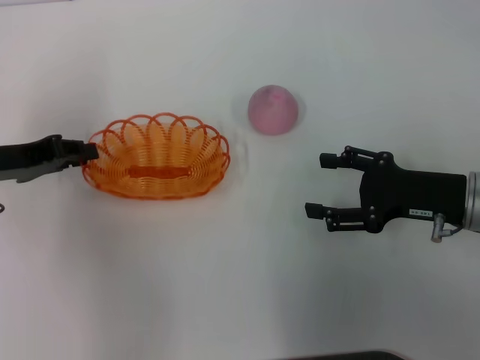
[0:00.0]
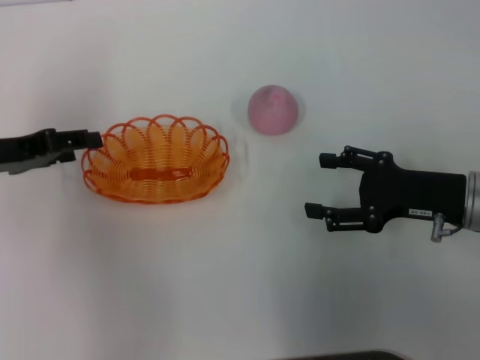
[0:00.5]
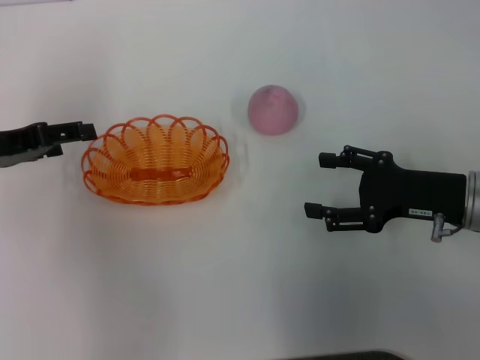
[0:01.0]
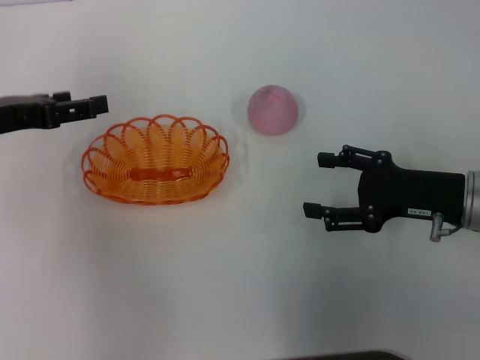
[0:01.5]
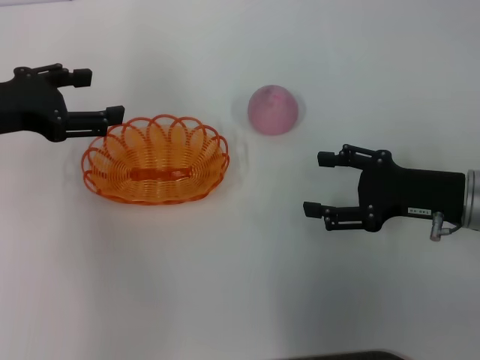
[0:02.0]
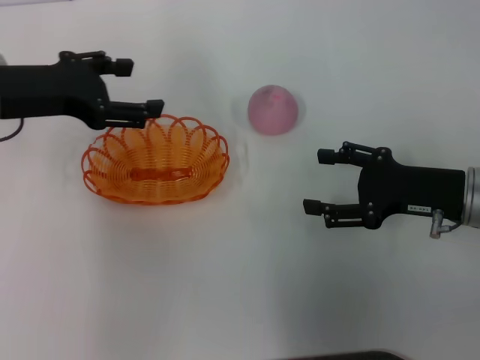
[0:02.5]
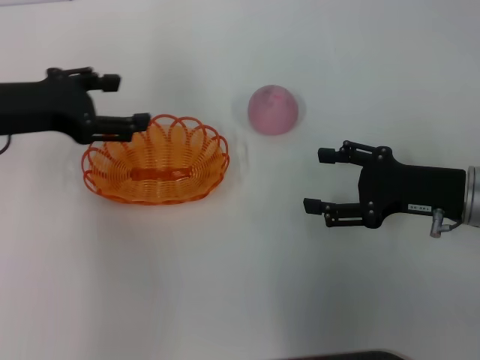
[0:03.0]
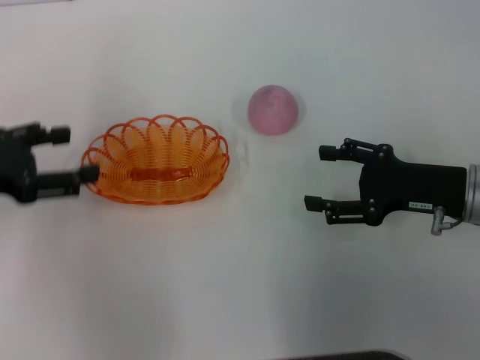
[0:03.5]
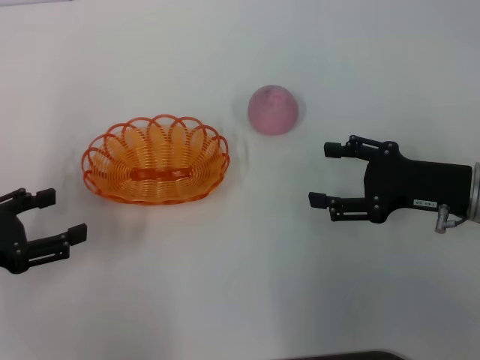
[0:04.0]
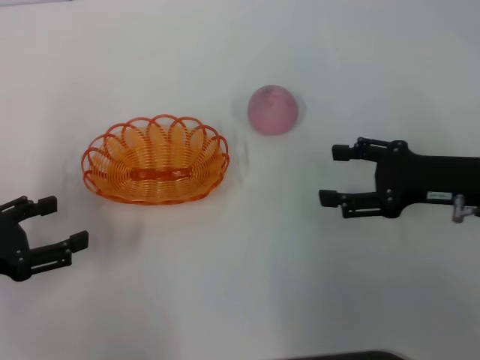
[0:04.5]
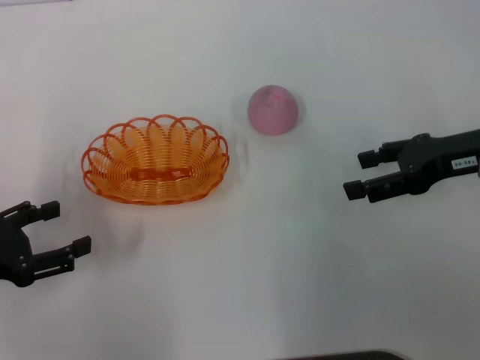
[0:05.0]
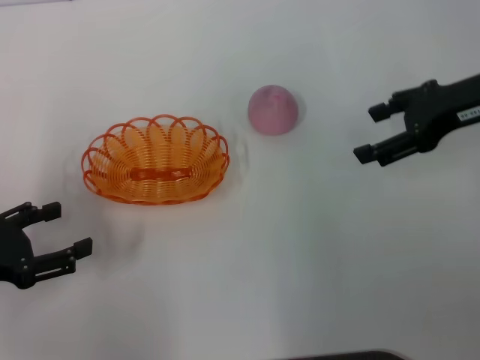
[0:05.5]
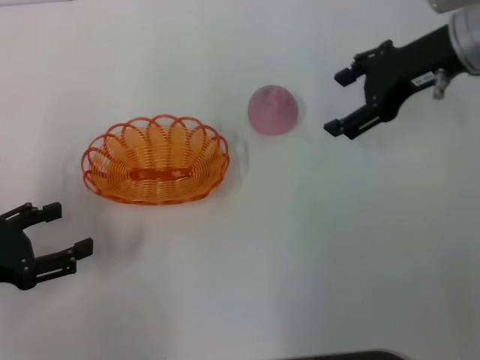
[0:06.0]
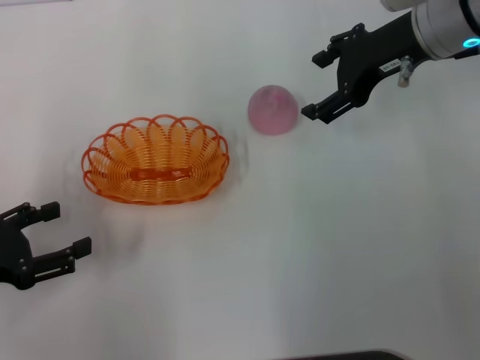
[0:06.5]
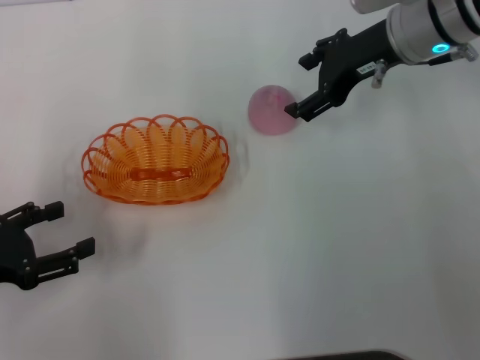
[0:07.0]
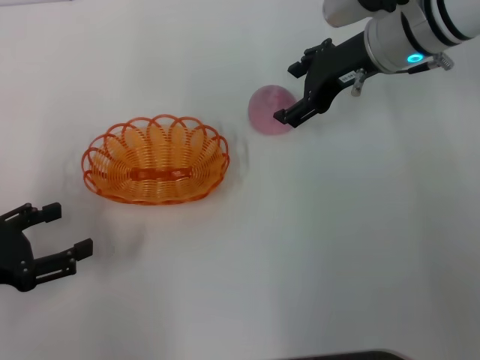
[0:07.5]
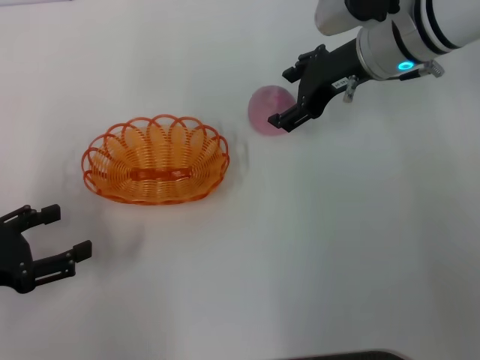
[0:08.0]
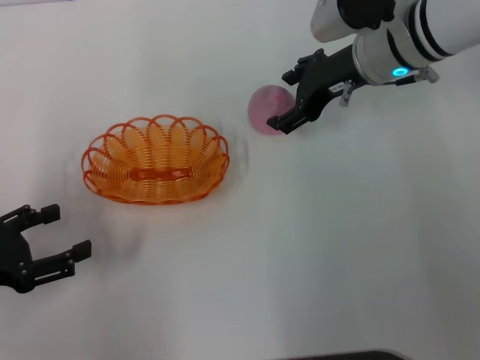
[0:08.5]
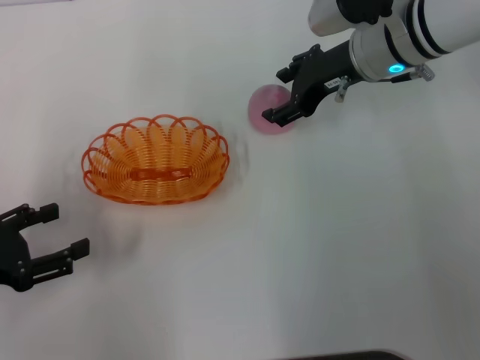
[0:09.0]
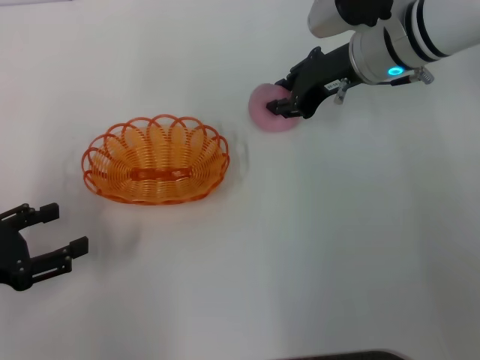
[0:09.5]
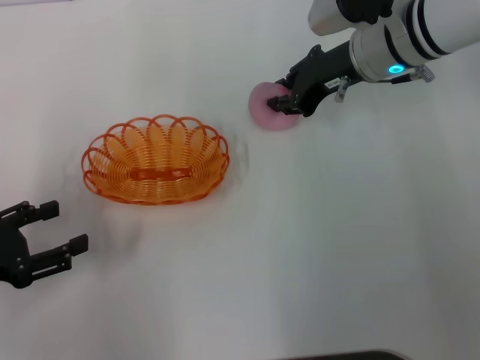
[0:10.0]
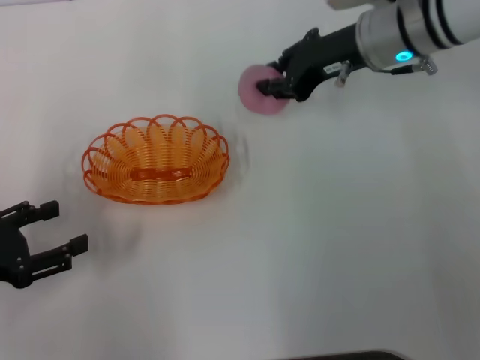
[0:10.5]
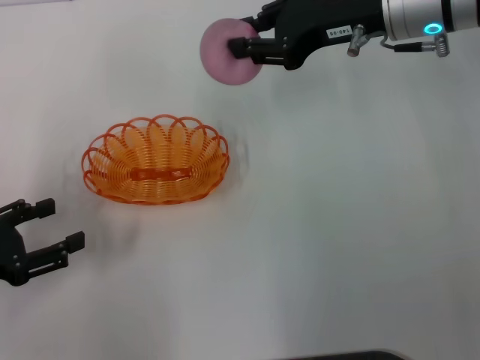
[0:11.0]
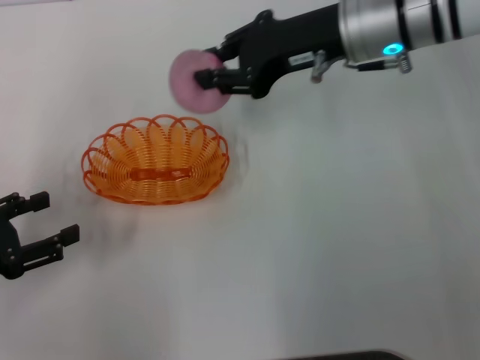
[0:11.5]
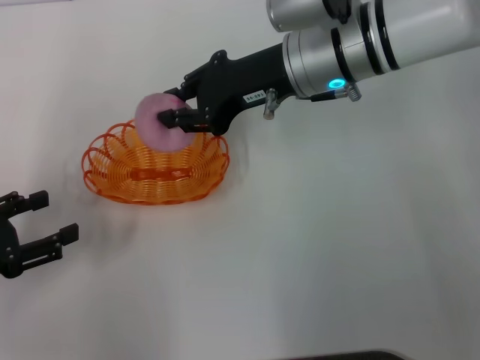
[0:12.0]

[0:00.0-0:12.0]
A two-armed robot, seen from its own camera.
Step, 0:01.0 to 0:10.5: Pick up the peach with the right gripper.
0:00.0 to 0:02.0: The left gripper shifts roughly 5 cm upward, and opens up.
0:02.0 to 0:04.0: The left gripper goes approximately 15 cm backward and downward.
0:04.0 to 0:06.0: The right gripper heads upward and forward, covering roughly 15 cm.
0:06.0 to 0:08.0: The right gripper is displaced to the left and downward by some 10 cm.
0:08.0 to 0:10.0: The right gripper closes up.
0:10.0 to 0:12.0: The right gripper goes some 5 cm to the left.

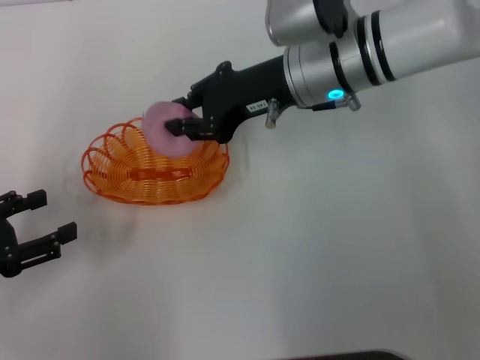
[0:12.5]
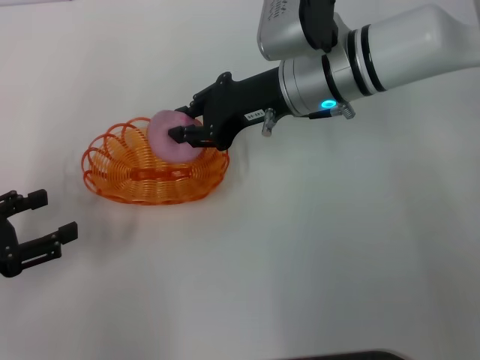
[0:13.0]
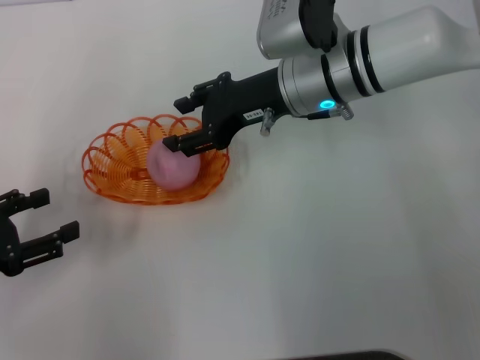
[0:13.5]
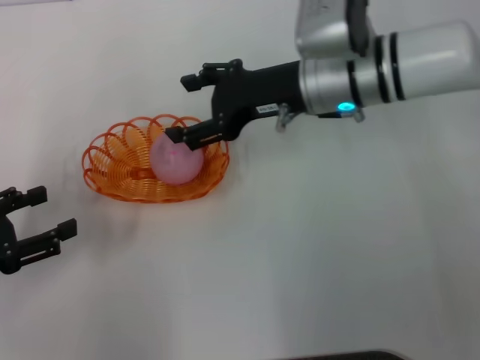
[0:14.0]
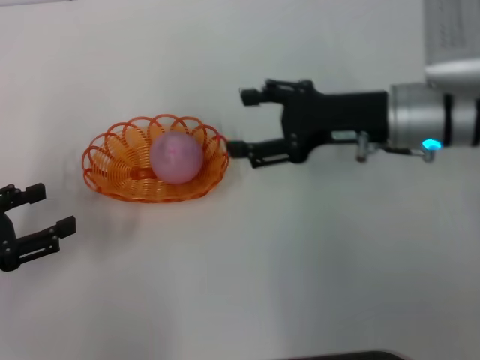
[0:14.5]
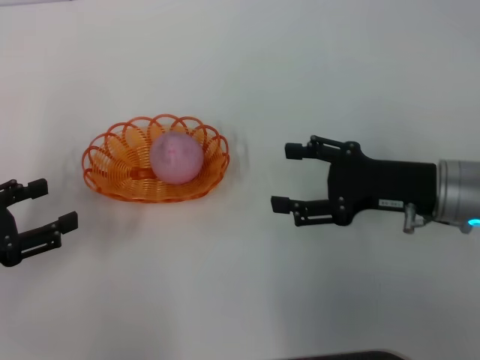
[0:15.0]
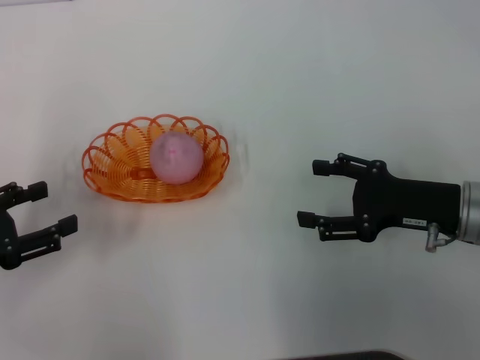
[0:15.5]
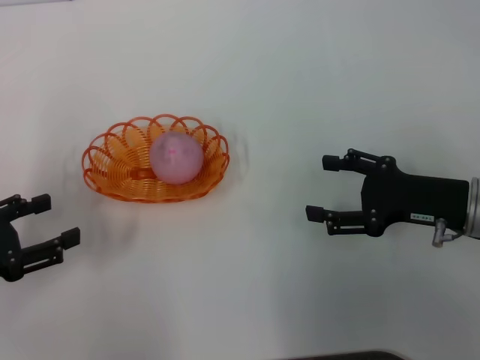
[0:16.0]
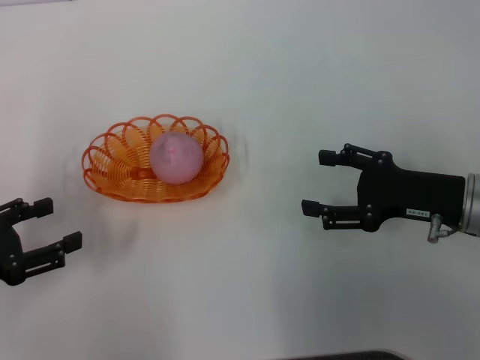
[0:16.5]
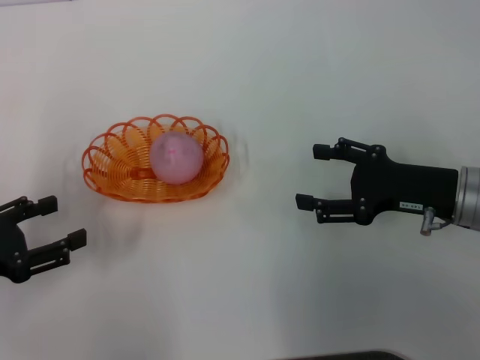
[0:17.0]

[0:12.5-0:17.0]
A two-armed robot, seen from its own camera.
0:12.5 to 0:14.5: The right gripper travels to the right and backward by approximately 10 cm, and opens its fingers.
0:14.5 to 0:17.0: The right gripper shifts about 10 cm backward, to the right and downward.

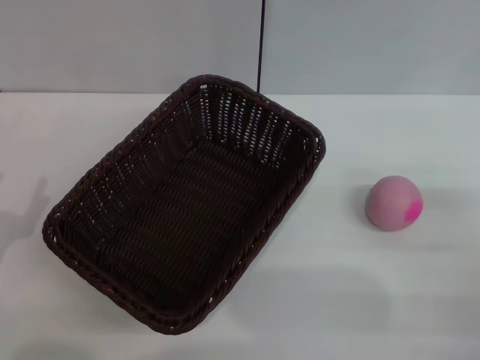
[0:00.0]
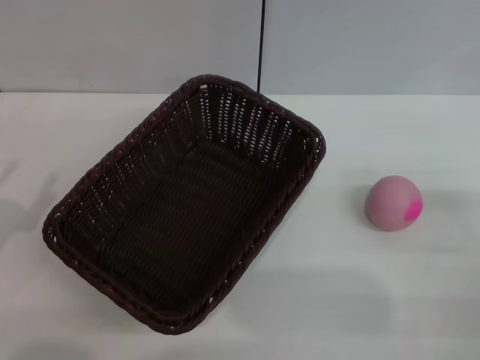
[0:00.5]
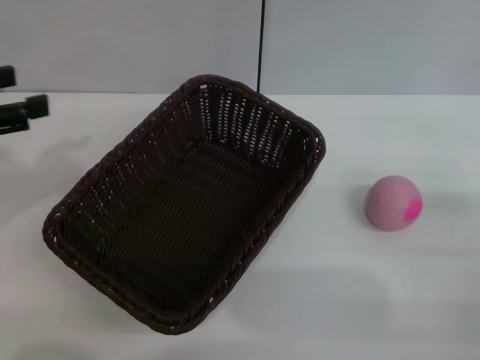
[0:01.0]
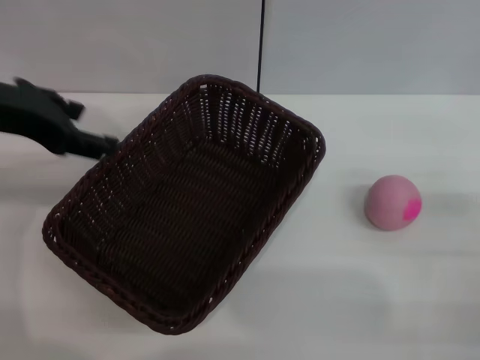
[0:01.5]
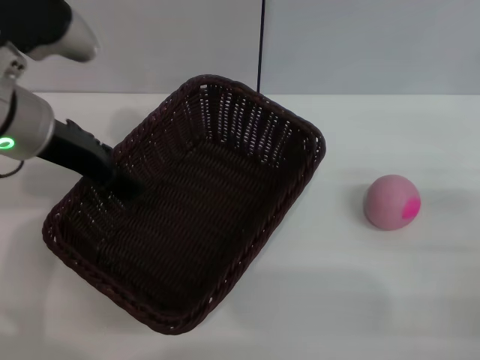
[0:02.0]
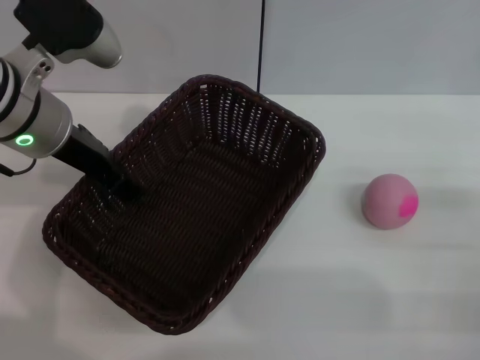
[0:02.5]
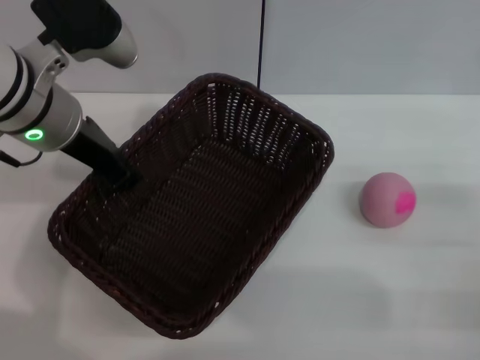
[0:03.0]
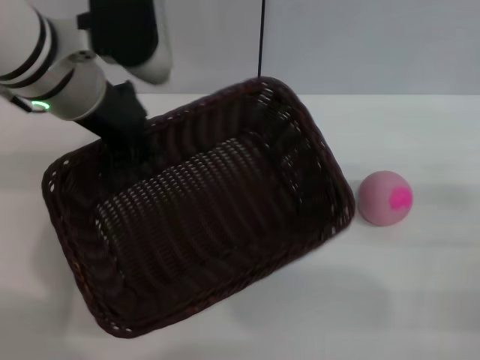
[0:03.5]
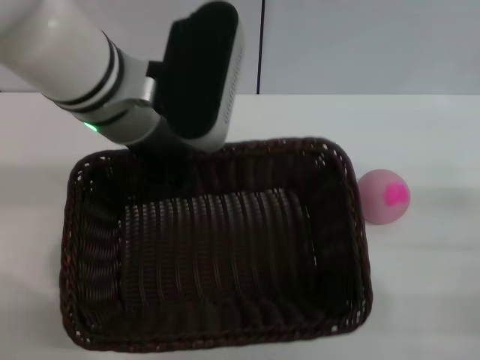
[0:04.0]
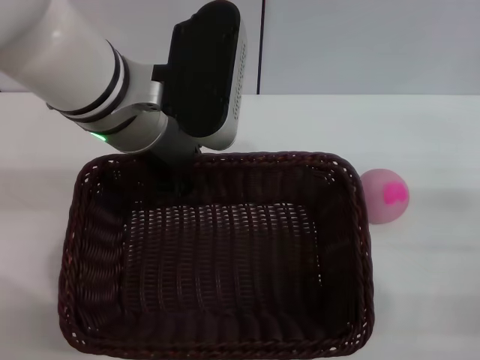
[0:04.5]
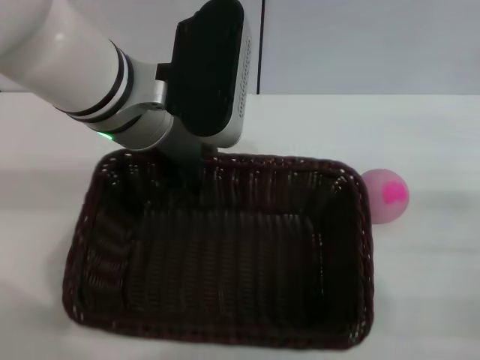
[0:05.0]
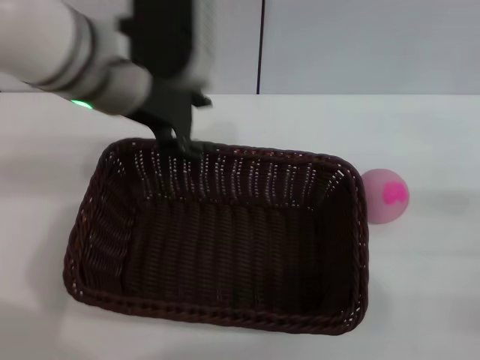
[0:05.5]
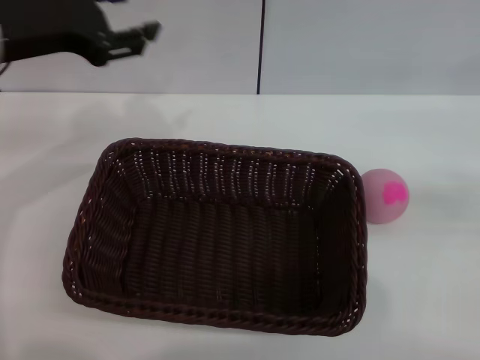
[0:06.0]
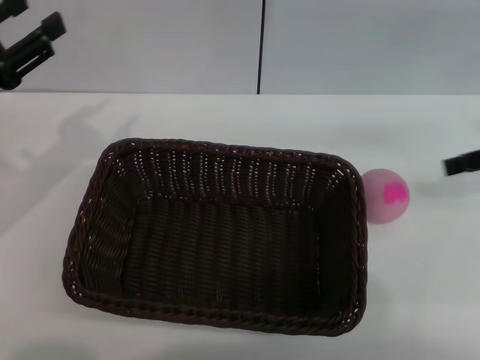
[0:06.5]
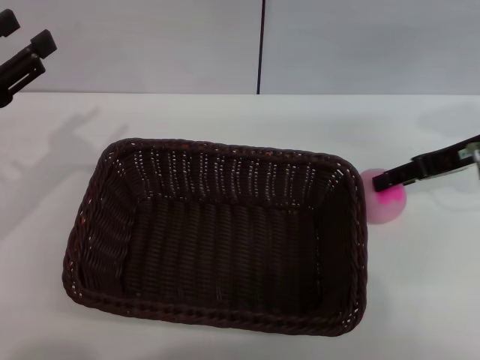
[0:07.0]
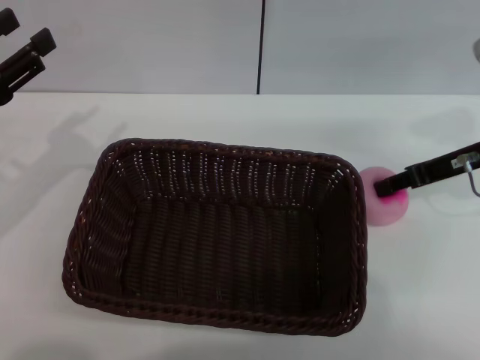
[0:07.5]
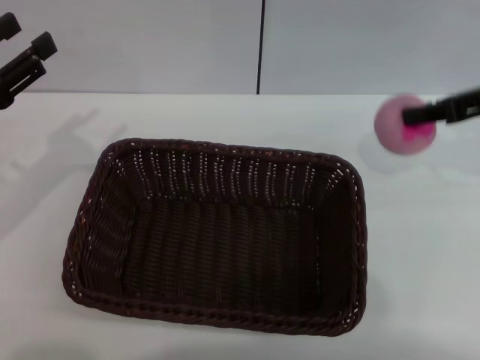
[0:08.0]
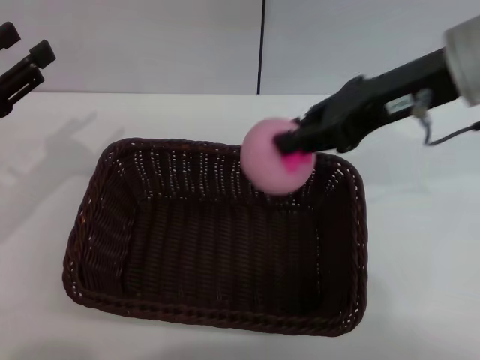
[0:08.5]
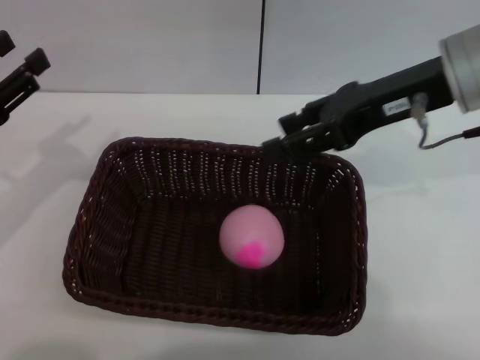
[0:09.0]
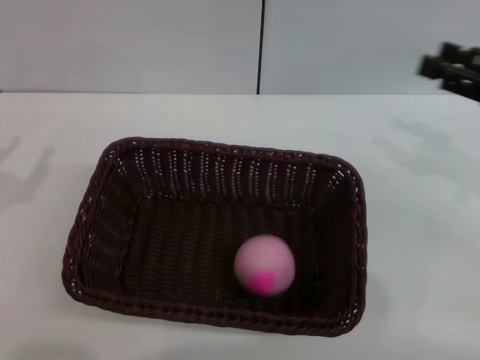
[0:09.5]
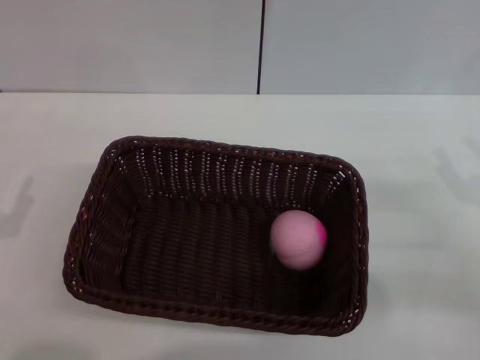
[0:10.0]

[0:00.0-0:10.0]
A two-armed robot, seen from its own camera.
Step, 0:00.0 to 0:03.5: Pick up the dark basket with the left gripper.
Step, 0:04.0 to 0:05.5: Place the dark basket in the center of view with the right gripper.
Step, 0:06.0 to 0:08.0: Pick up the peach with the left gripper.
Step, 0:08.5 to 0:09.0: Place the peach into the basket with the left gripper.
0:00.0 to 0:02.0: The left gripper heads forward, upward and to the right, covering roughly 25 cm.
0:02.0 to 0:04.0: The left gripper travels to the right by roughly 10 cm, and closes.
0:04.0 to 0:06.0: The right gripper moves upward and to the right, roughly 15 cm. The left gripper moves to the left, some 15 cm, and opens up.
0:06.0 to 0:08.0: The left gripper shifts some 10 cm downward, to the left and backward, while the right gripper travels to the left and forward by approximately 15 cm, and closes.
0:08.0 to 0:10.0: The left gripper is displaced backward and downward by some 15 cm. Meanwhile the right gripper travels downward and backward by about 20 cm, and opens.
